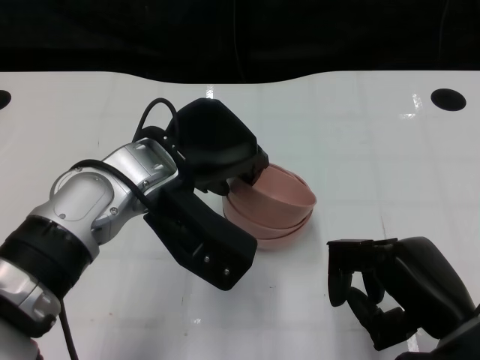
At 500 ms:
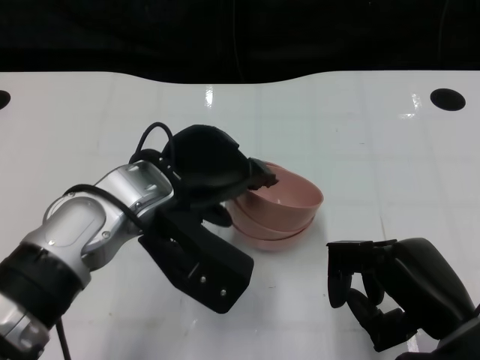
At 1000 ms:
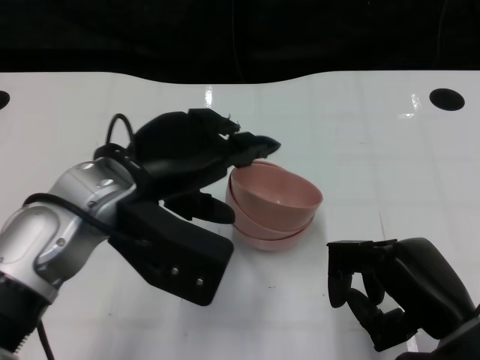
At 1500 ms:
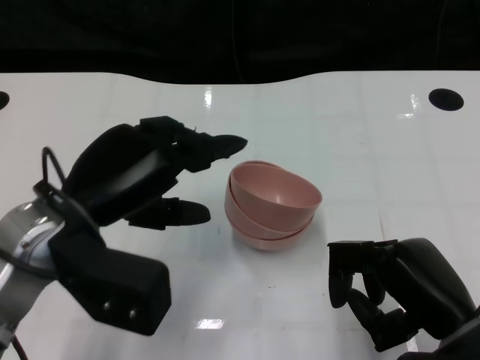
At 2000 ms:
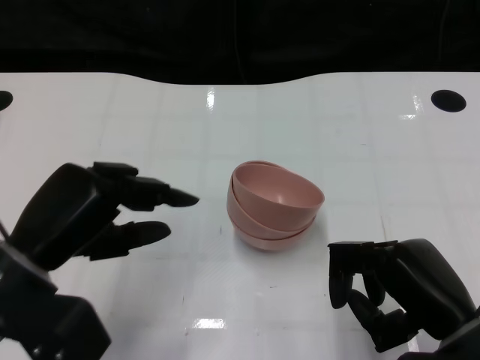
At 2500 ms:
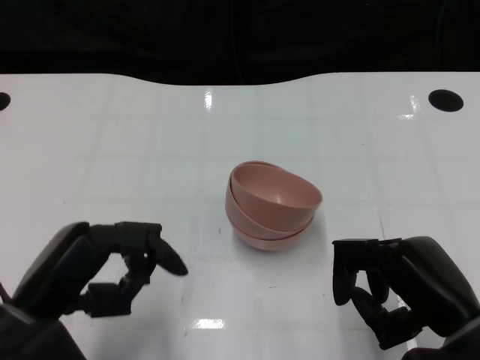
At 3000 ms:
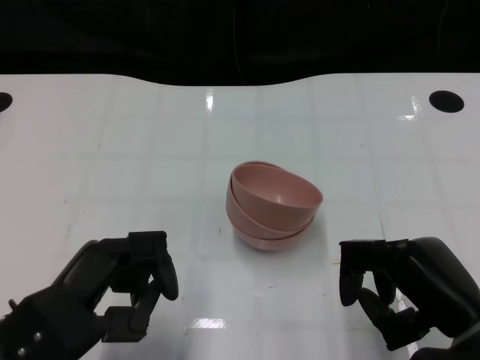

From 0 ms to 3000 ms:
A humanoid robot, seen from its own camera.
Task of the whole recording: Pick up the bowl on one side of the table and place it on top of the middle bowl, then pick up the bowl on the other side of the table and place it on top of the middle bowls.
From 0 ms to 1500 ms: The left hand travels to the left by approximately 10 cm.
From 1500 ms to 3000 ms: The left hand shifts approximately 10 cm backward and downward.

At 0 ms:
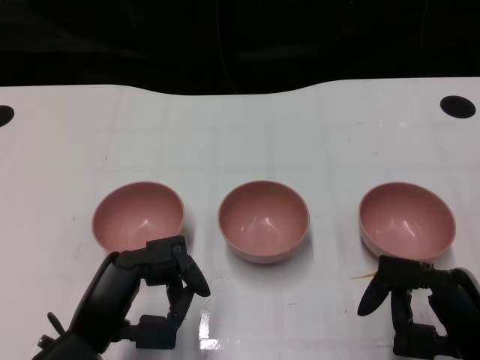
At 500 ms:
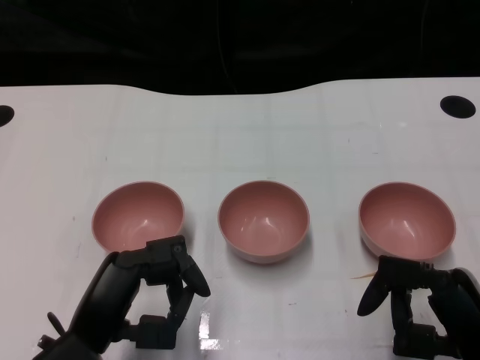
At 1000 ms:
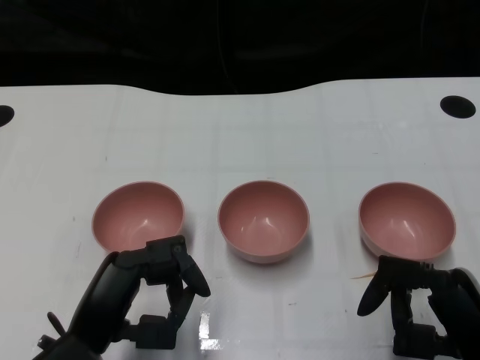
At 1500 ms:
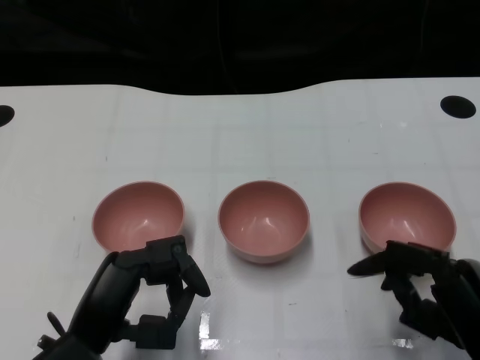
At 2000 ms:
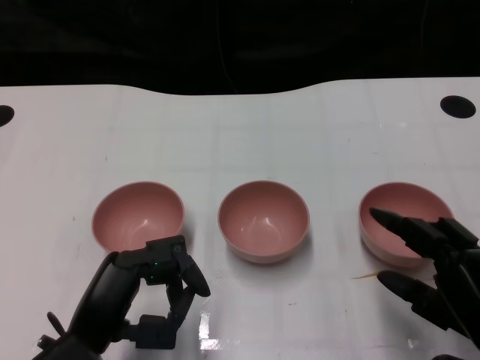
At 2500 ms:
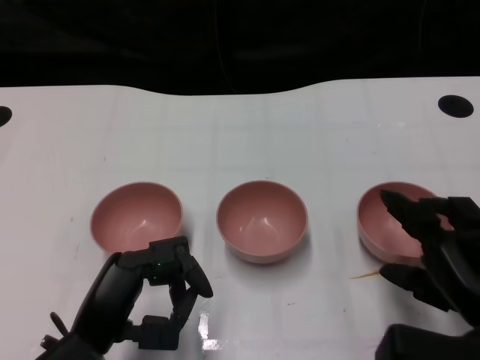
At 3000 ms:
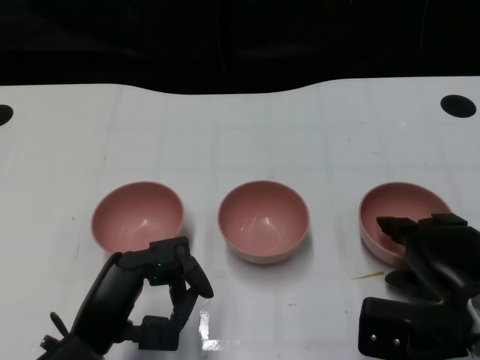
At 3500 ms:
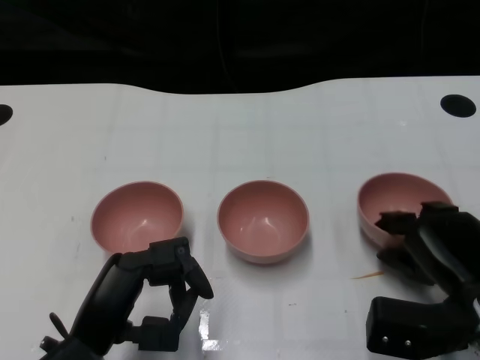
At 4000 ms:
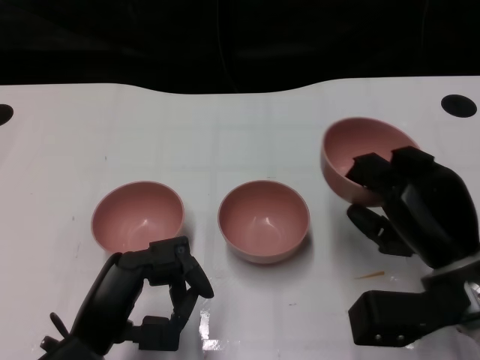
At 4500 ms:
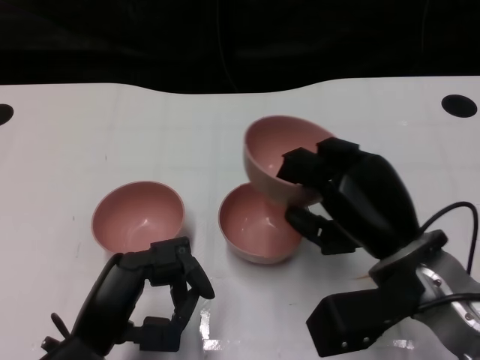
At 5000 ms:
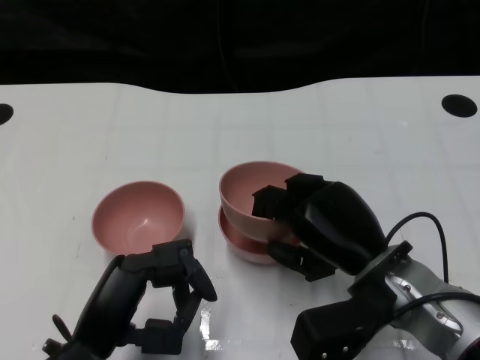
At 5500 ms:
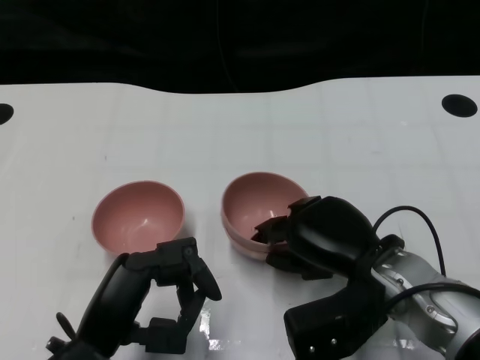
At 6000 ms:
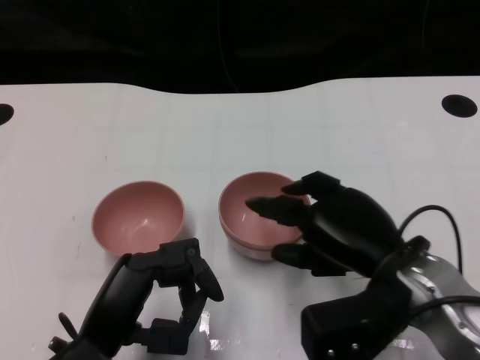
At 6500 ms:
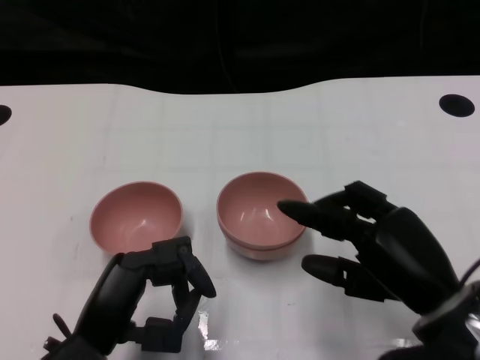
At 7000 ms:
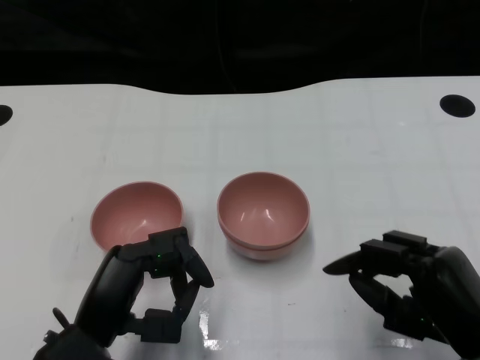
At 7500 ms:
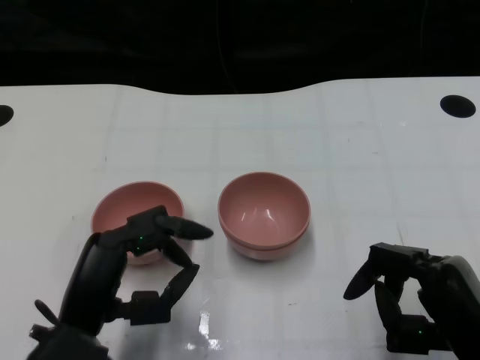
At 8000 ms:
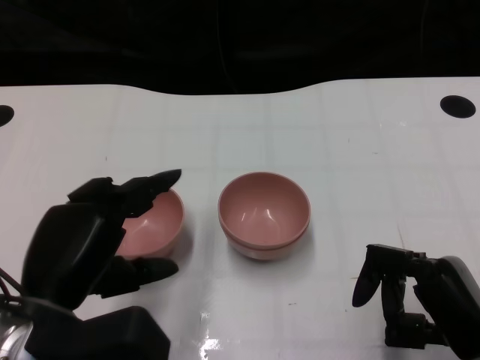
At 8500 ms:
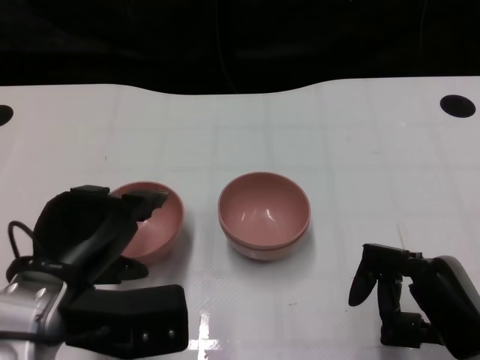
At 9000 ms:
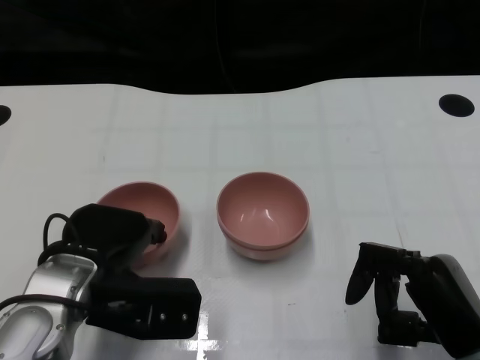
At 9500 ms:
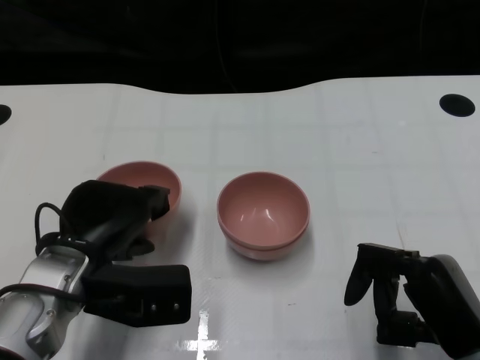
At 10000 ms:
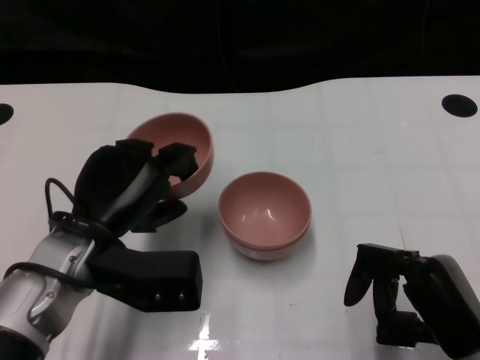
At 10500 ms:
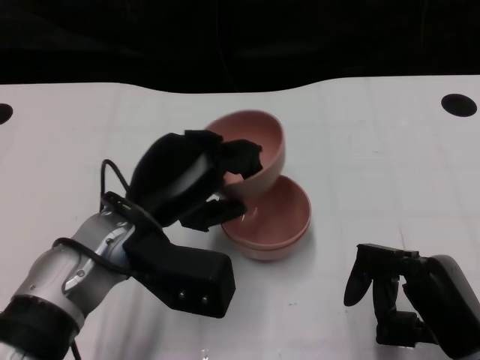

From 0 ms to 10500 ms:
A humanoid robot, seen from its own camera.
Task of the whole recording: Pick up the bowl on one side of the table and place it on top of the middle bowl, then pick up the bowl on the other side of the table and place it on top of the middle bowls.
Step, from 1500 ms to 3500 ms: Grasp the bowl on the right with the right gripper.
Step, from 4000 ms to 6000 ms: Place the bowl on the right onto the bowl in the middle with right gripper.
Step, from 6500 ms to 9000 ms: Grasp the bowl on the left with the left gripper.
From 2000 ms to 4000 ms: The right hand travels forward by about 10 cm.
From 6500 ms to 8500 ms: The right hand shifts by some 5 cm. Meanwhile the left hand goes roughly 5 cm upward.
From 8500 ms to 10500 ms: The left hand travels to the right and forward by about 10 cm.

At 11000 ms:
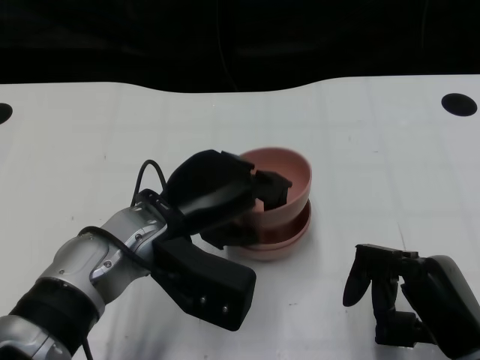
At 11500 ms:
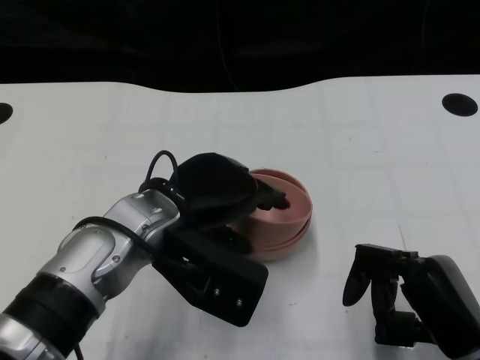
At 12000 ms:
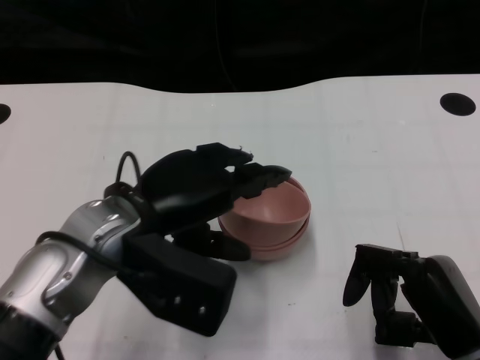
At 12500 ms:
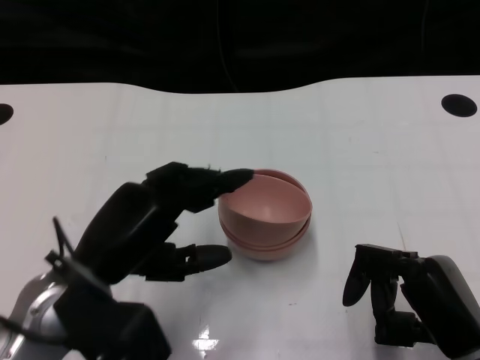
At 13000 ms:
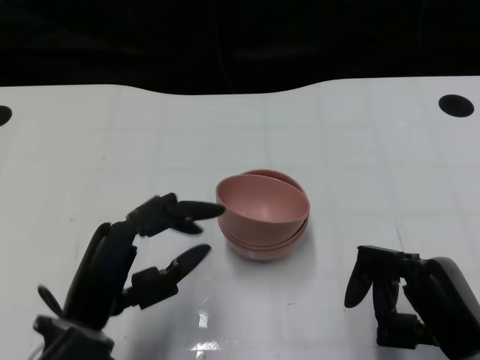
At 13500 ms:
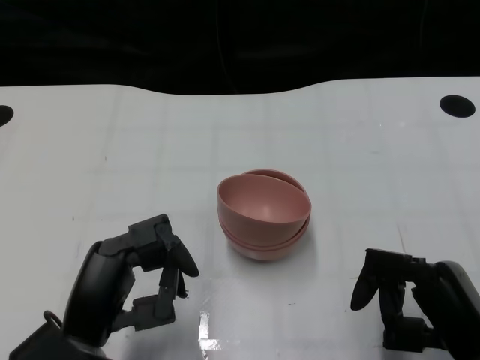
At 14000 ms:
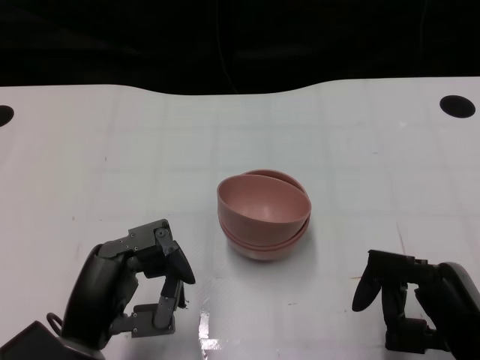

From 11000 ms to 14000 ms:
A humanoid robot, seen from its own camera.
Task of the whole recording: Pick up the bowl on one side of the table and place it on top of the middle bowl, then pick up the bowl on the other side of the table and place it on top of the middle bowls.
From 11000 ms to 12500 ms: The left hand travels to the left and backward by roughly 10 cm.
From 12500 ms to 14000 ms: The left hand is displaced downward by about 5 cm.
